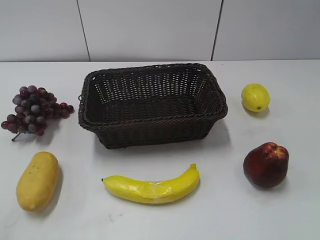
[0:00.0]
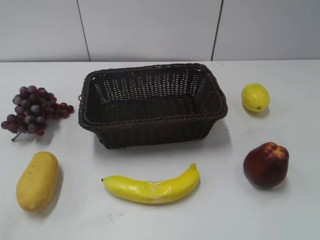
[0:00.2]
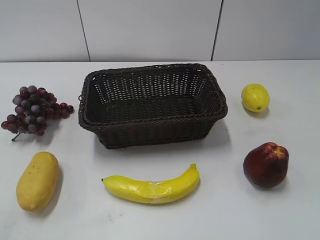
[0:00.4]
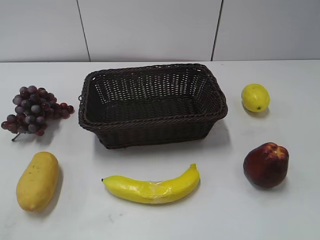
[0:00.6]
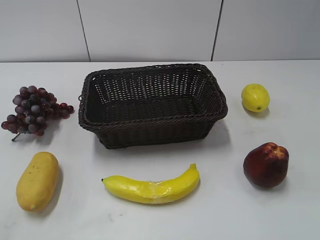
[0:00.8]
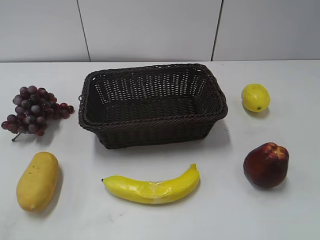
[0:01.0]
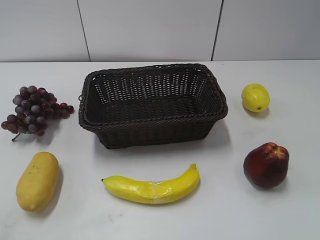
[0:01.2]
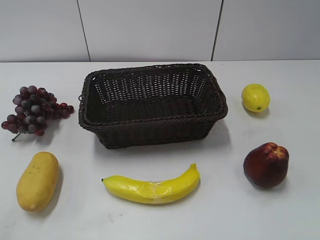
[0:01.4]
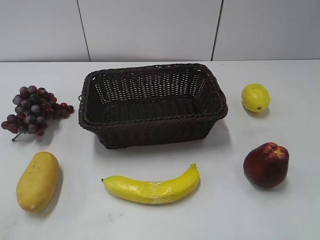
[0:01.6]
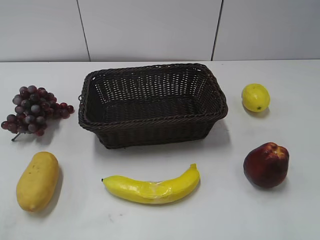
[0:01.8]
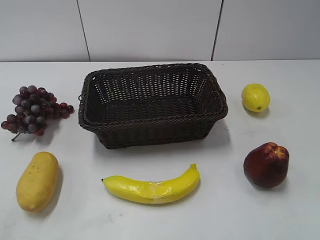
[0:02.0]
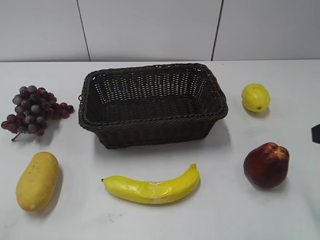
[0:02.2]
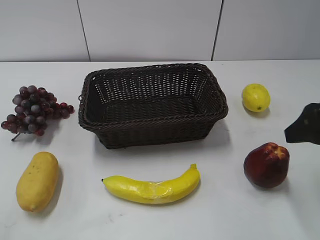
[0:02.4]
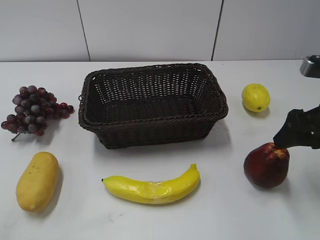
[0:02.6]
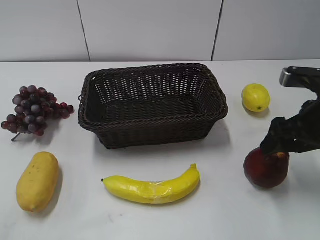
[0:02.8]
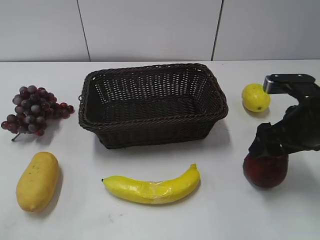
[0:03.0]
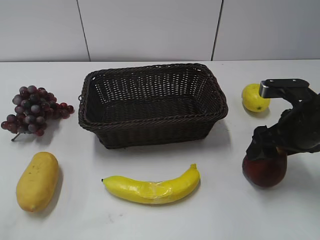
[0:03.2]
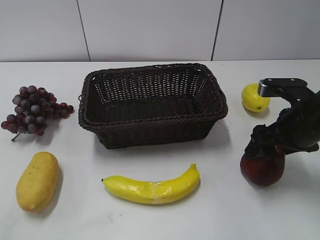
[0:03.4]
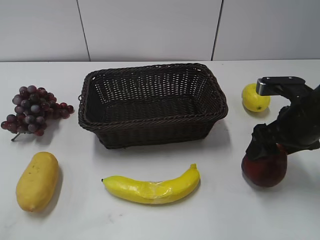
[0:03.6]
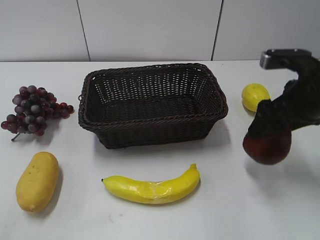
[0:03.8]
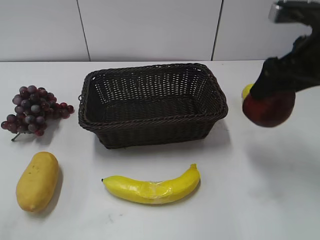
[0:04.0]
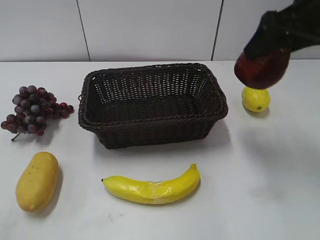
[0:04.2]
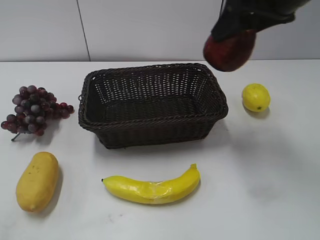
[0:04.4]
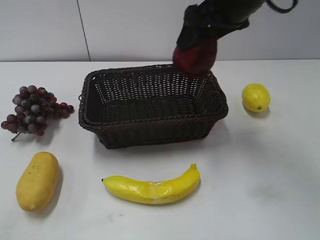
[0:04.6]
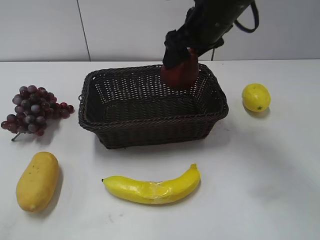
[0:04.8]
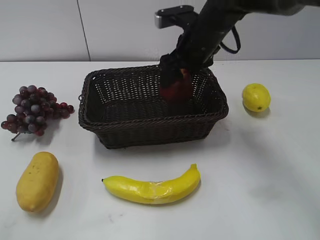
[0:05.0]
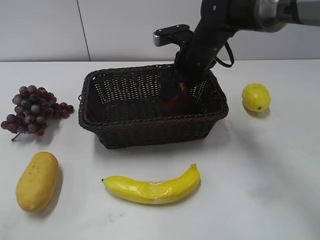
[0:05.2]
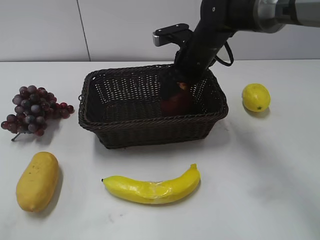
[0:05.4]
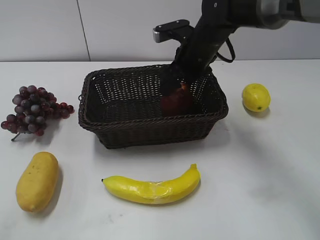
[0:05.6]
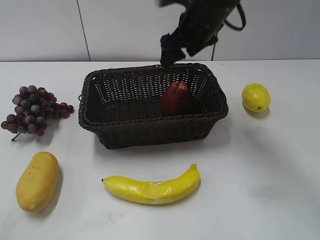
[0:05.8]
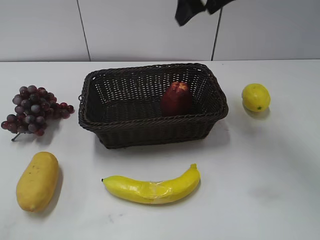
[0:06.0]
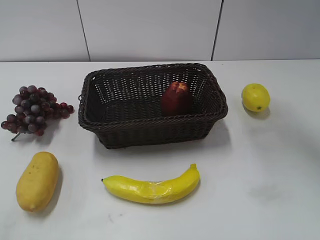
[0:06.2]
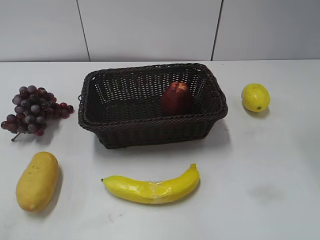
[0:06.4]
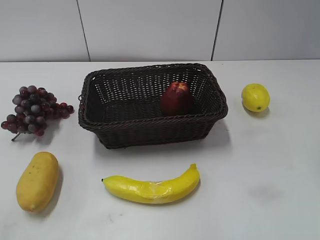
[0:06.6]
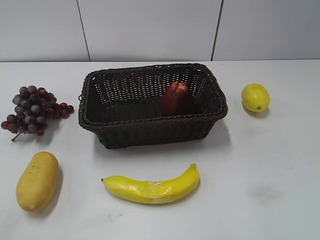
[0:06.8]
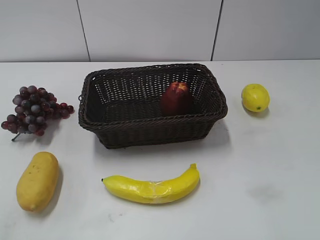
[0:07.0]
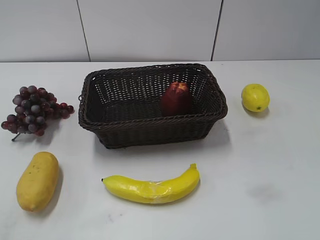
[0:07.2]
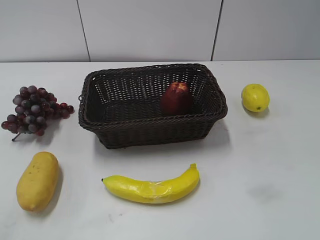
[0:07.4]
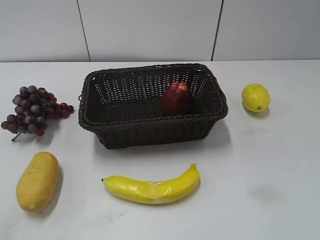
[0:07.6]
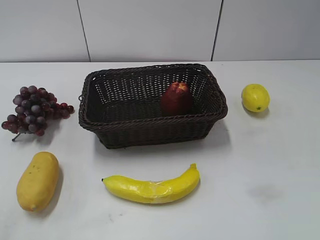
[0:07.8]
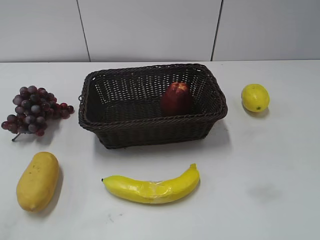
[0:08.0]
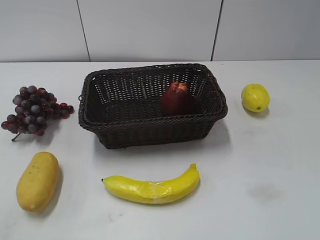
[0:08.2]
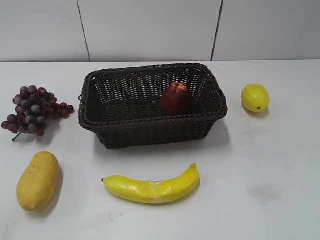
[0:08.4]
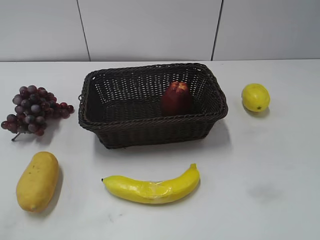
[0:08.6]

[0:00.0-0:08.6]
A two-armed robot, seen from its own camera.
Step, 0:02.2 to 0:03.2: Grasp the apple with right gripper.
Step, 0:03.6 to 0:05.4: Place the apple in the basket with right gripper.
0:01.4 to 0:02.8: The right gripper heads forward and downward, covering approximately 25 cm.
0:02.8 to 0:04.4: The right gripper moves upward, to the left and forward, some 20 cm.
0:04.4 to 0:05.8: The right gripper is displaced forward, to the left and downward by some 15 cm.
0:05.8 to 0:07.2: The right gripper shifts roughly 50 cm backward and to the right.
